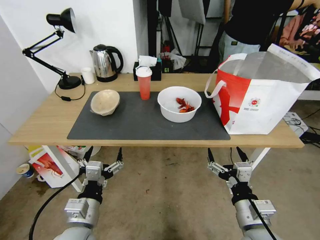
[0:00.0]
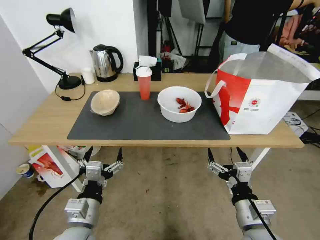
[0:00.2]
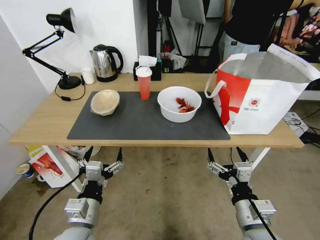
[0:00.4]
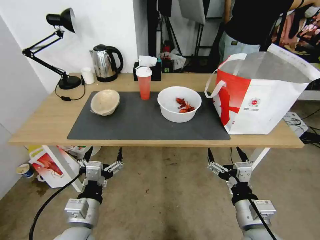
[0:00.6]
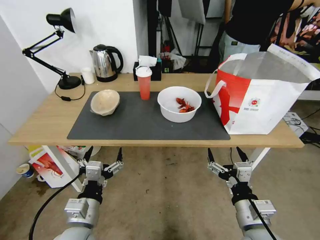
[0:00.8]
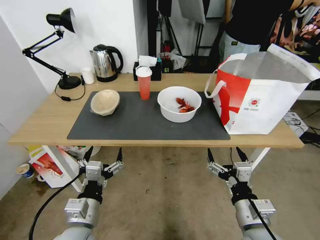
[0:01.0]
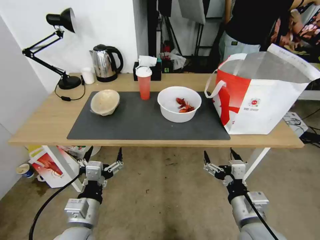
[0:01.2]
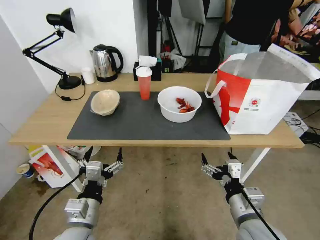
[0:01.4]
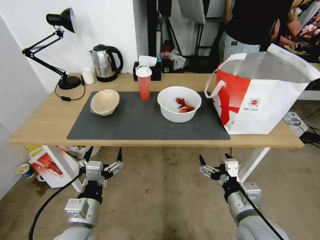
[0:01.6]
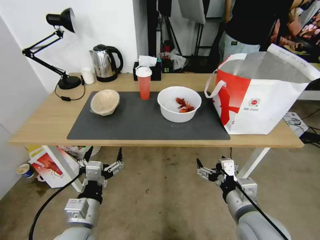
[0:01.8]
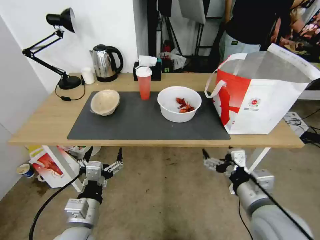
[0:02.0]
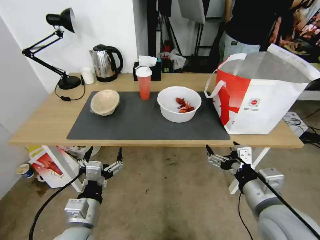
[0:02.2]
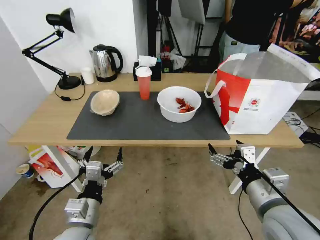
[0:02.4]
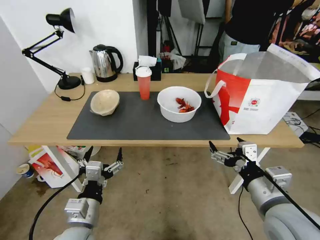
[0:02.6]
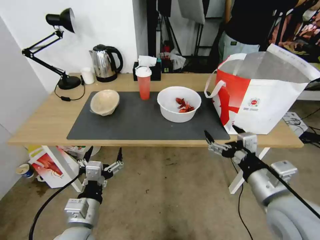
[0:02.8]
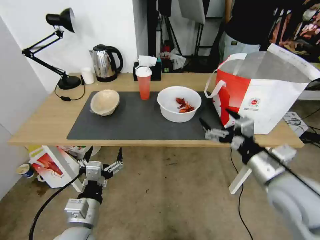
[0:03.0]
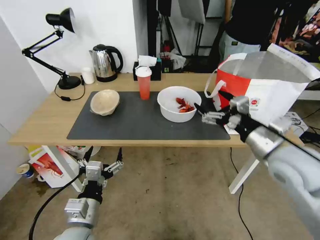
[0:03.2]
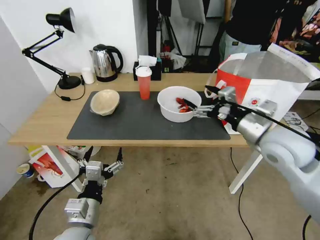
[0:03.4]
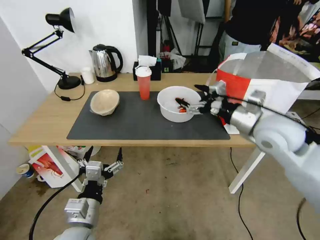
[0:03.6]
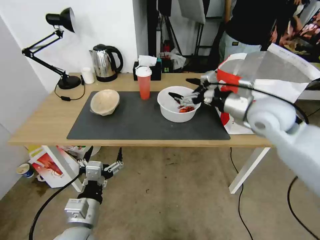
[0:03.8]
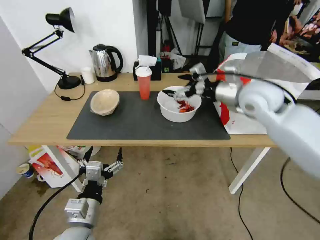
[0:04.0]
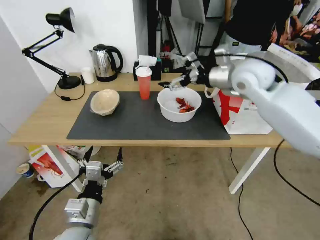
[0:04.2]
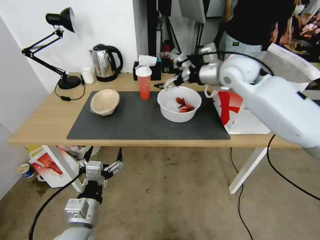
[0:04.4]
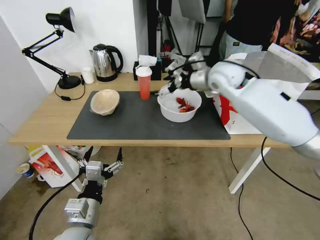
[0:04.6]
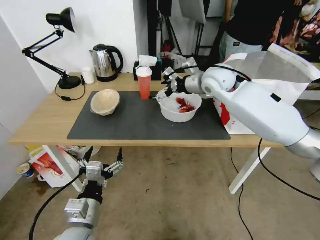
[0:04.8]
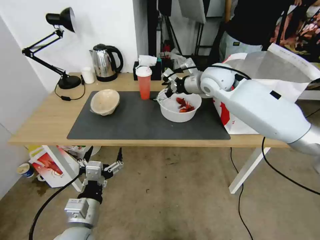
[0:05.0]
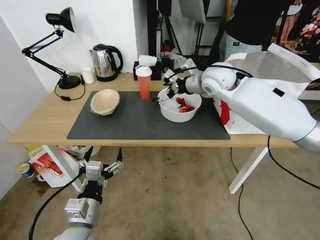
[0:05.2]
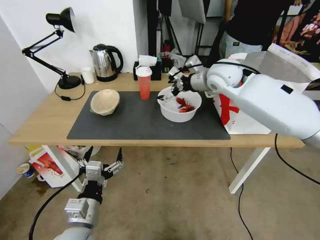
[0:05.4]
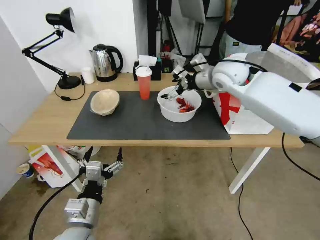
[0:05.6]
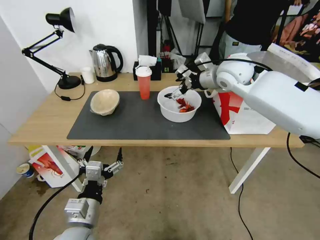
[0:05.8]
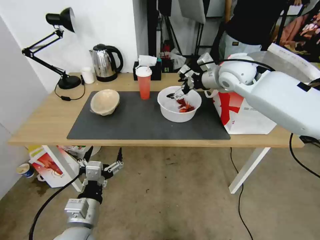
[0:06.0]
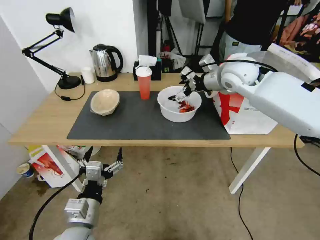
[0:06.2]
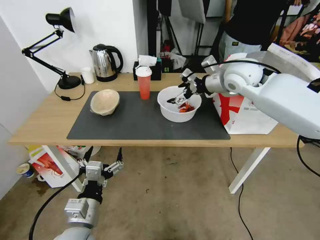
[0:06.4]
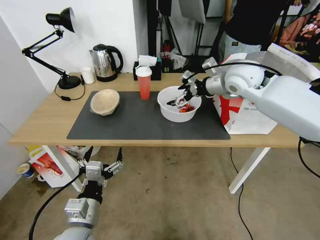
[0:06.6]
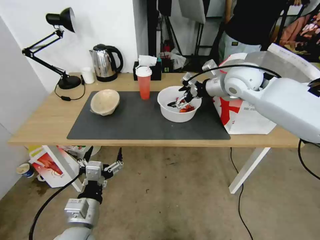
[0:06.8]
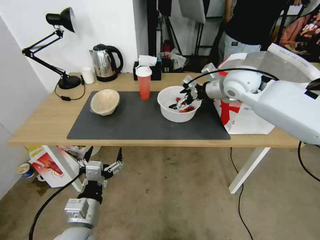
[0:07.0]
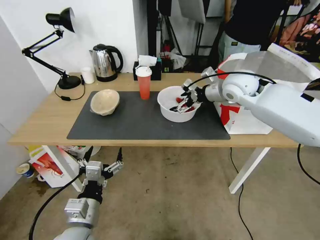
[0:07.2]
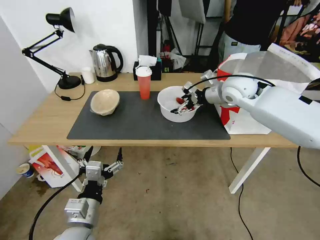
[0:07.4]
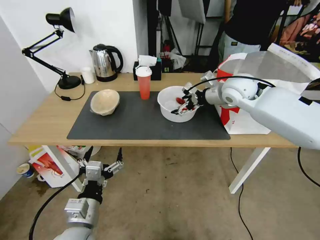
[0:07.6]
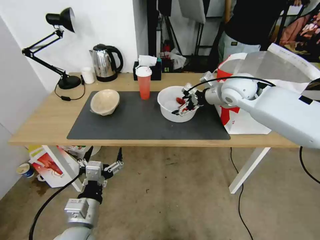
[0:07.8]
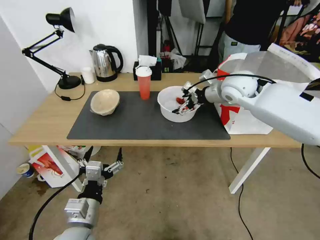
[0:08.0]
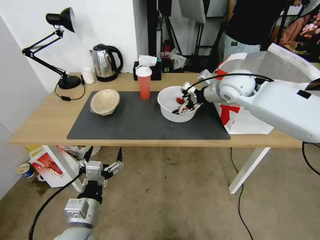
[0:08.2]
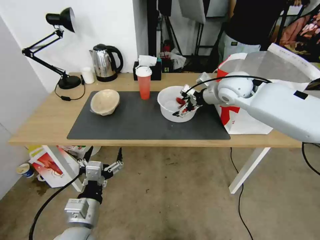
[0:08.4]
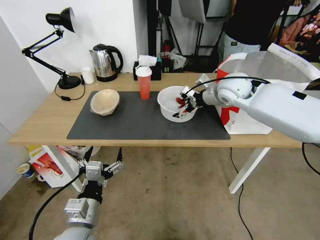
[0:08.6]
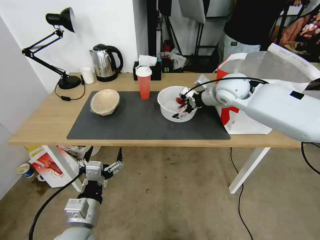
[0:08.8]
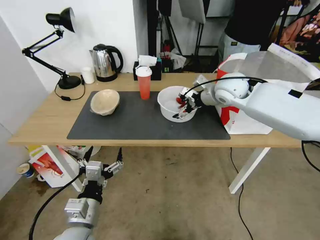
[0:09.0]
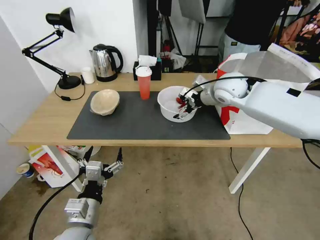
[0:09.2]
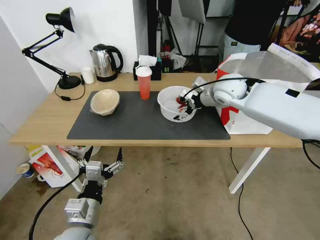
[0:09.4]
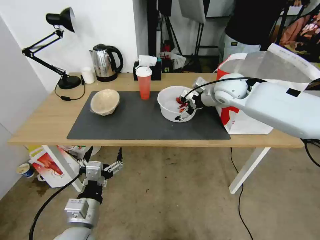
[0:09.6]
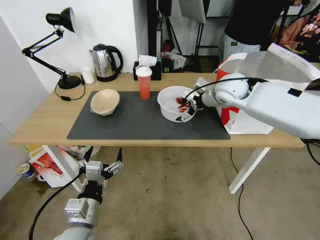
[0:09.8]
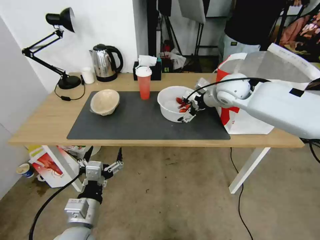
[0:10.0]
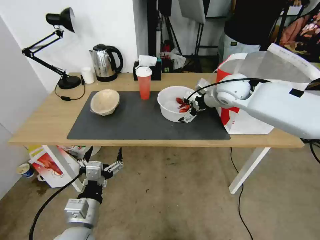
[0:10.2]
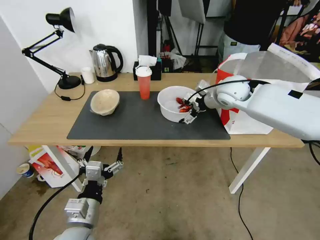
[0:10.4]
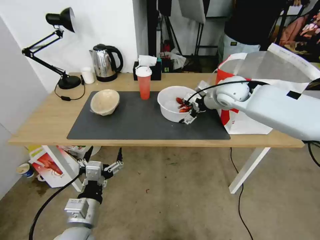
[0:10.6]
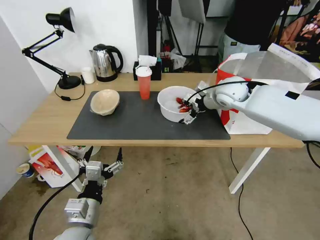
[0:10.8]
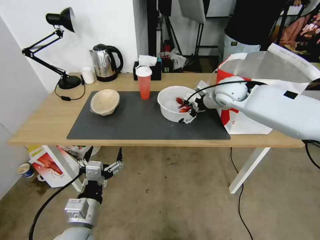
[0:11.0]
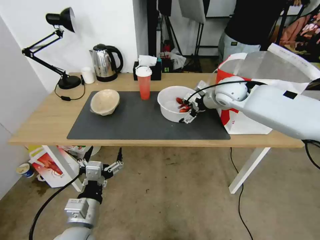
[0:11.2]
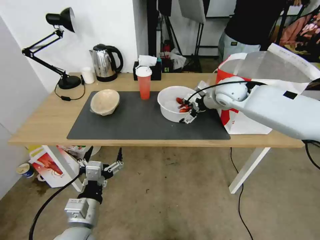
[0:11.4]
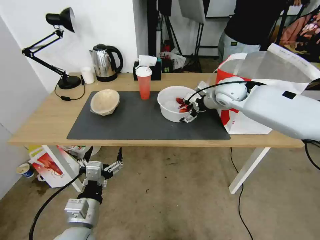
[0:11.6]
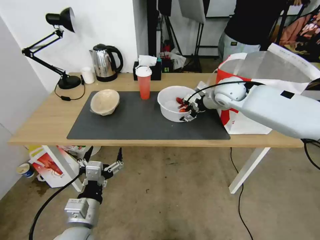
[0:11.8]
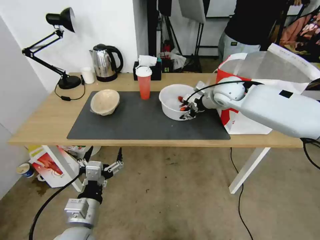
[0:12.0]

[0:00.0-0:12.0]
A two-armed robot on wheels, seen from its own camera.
Task of the whole recording: Pick up the trash from the table and place it into the takeout bag.
0:01.6 to 0:03.0: The right gripper travels upward, forward and to the right by some 10 cm.
0:03.0 to 0:04.4: The right gripper is displaced forward and upward by roughly 30 cm.
0:04.4 to 0:06.0: The grippers move only a little.
0:06.0 to 0:07.6: The right gripper shifts by approximately 5 cm.
0:07.6 to 0:10.4: The grippers make only small movements.
0:10.4 to 0:12.0: The right gripper closes.

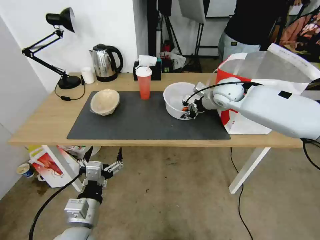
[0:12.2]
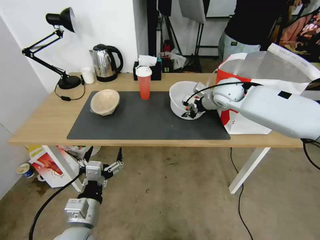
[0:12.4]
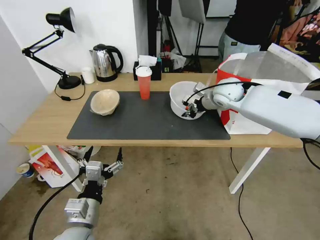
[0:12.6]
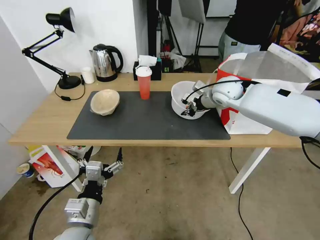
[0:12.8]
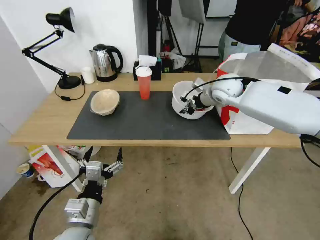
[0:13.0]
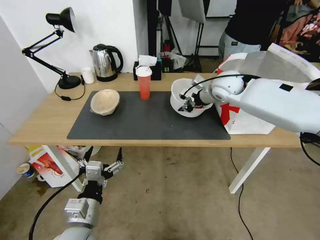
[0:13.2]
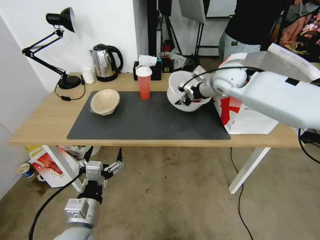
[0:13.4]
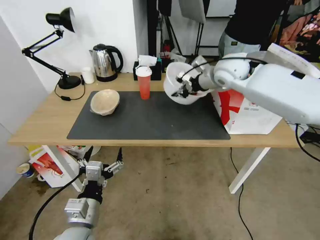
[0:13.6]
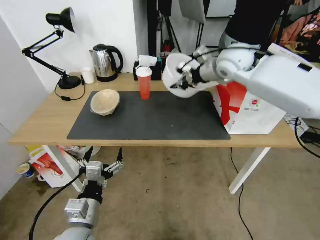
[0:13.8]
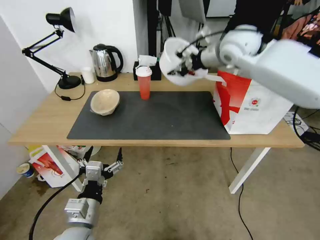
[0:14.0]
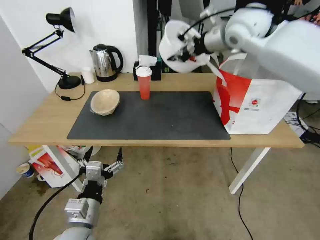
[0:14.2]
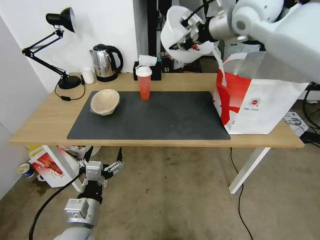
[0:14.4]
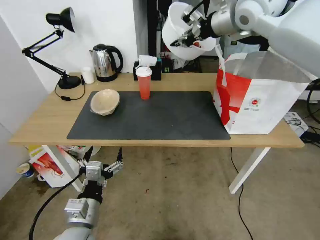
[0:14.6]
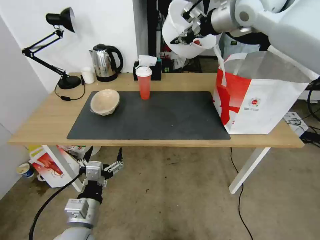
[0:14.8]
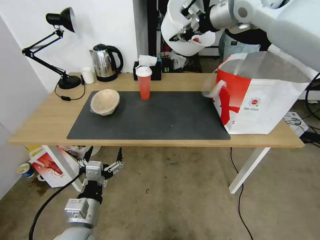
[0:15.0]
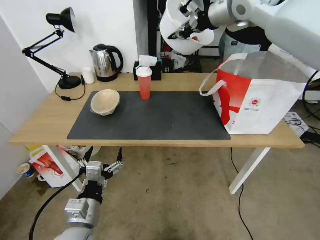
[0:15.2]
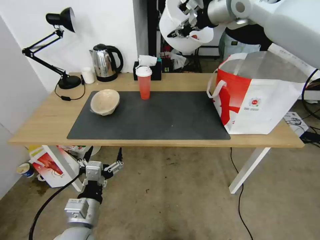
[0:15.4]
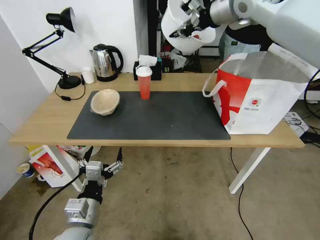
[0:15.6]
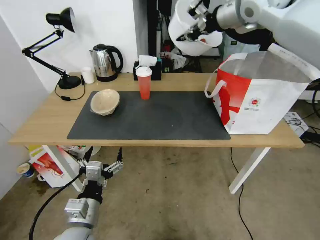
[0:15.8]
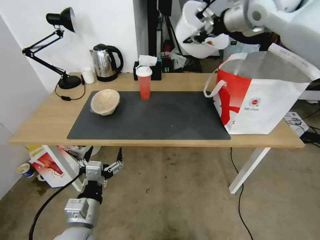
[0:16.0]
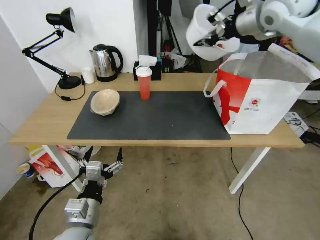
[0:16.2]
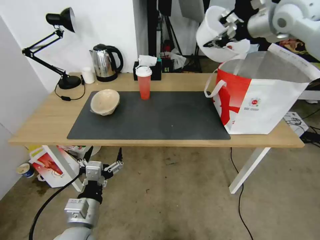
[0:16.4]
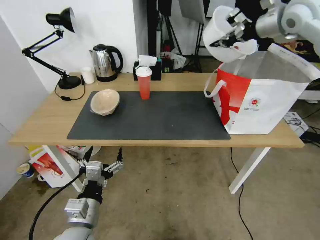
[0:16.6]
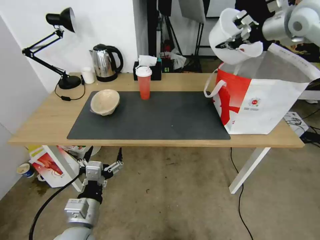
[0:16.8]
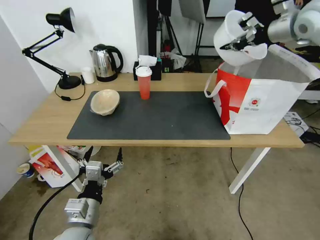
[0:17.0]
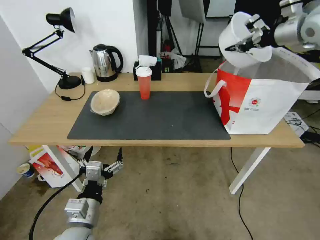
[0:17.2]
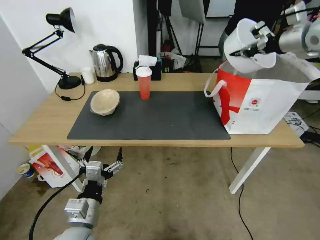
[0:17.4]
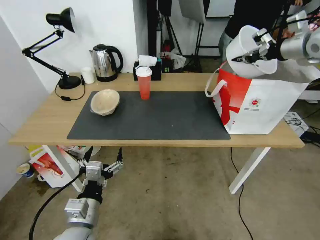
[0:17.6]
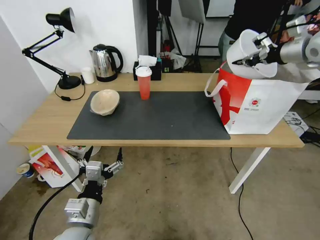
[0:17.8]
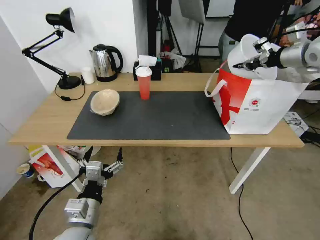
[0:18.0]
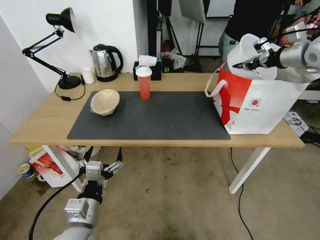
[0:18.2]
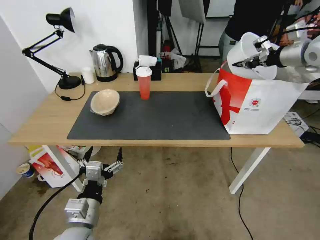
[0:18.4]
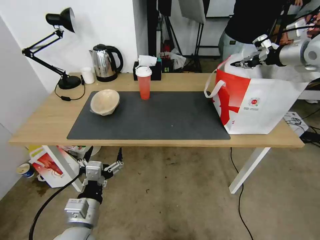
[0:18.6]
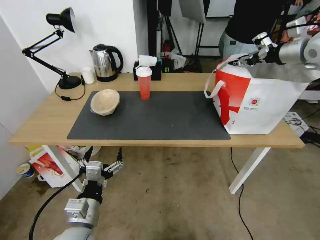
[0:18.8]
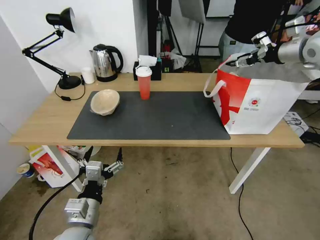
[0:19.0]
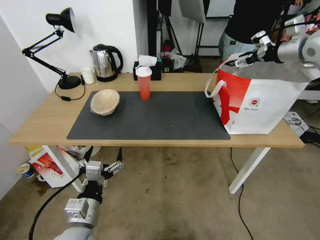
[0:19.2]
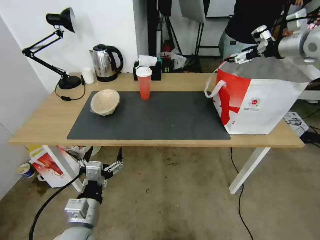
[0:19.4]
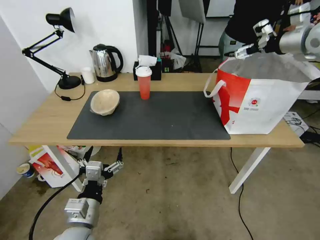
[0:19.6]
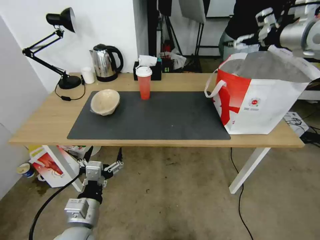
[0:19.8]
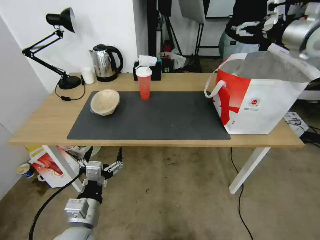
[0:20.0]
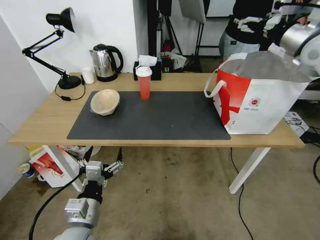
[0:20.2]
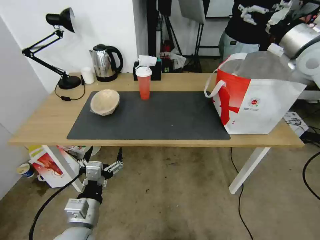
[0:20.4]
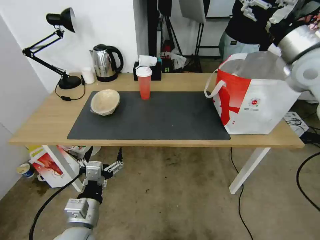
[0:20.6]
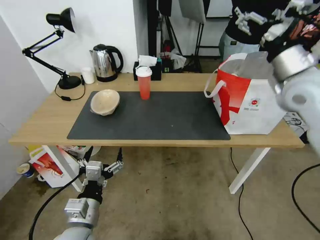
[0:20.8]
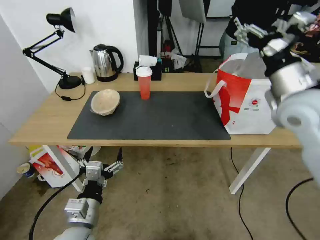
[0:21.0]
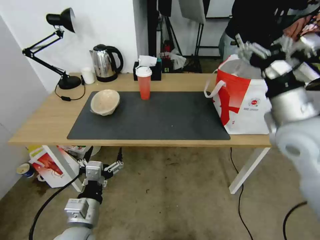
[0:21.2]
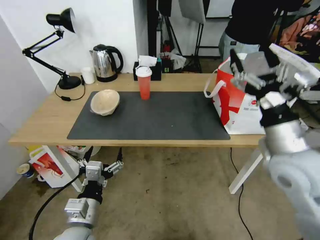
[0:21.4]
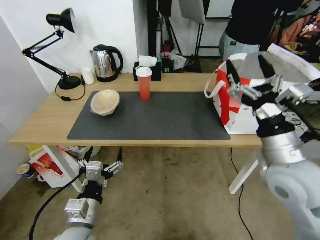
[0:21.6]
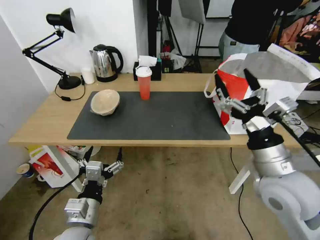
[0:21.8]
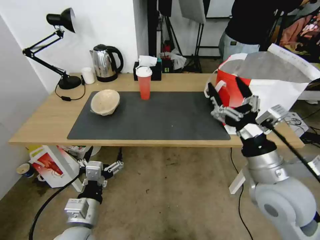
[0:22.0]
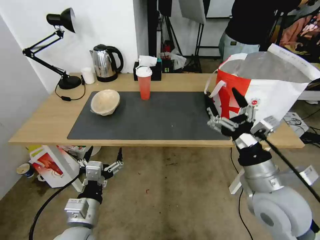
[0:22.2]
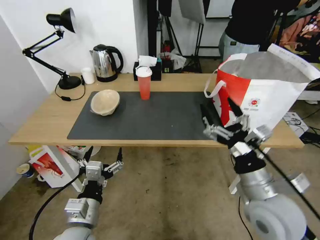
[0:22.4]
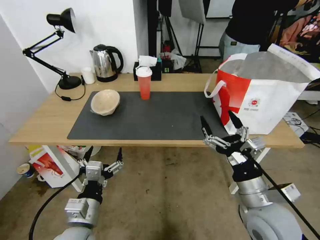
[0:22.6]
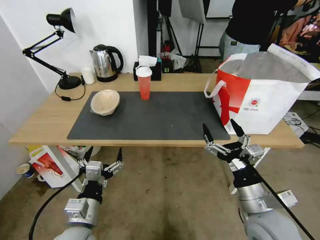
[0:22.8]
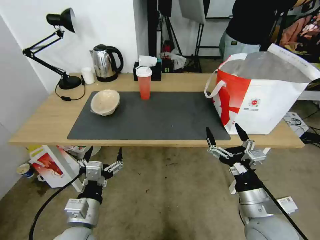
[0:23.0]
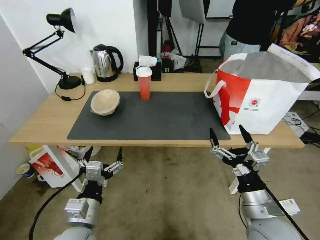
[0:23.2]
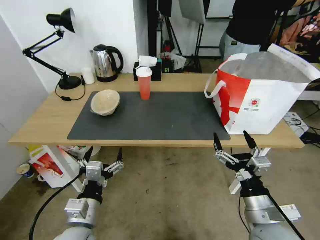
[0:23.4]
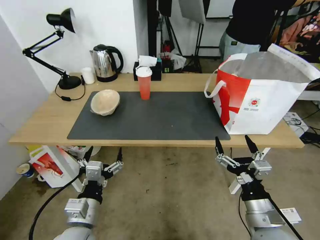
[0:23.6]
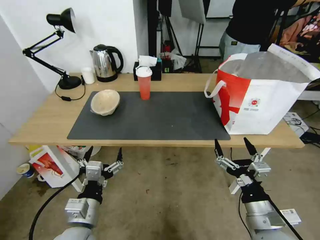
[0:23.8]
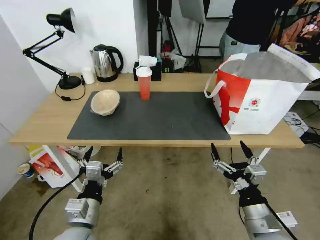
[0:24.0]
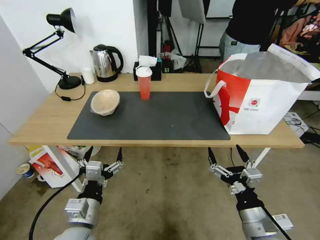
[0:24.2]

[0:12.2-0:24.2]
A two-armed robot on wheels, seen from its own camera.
Task of the whole recording: Pick up the trash from the table and place it into the takeout bag.
0:12.2 to 0:13.8: The right gripper travels upward by approximately 10 cm.
0:13.8 to 0:15.2: The right gripper moves upward, approximately 15 cm.
0:15.2 to 0:16.6: The right gripper shifts roughly 15 cm to the right.
0:16.6 to 0:18.2: The right gripper travels to the right and downward by about 15 cm.
0:18.2 to 0:19.8: The right gripper ends up roughly 5 cm from where it was, and opens its fingers.
0:19.8 to 0:21.2: The right gripper moves backward, downward and to the left, some 30 cm.
0:21.2 to 0:22.6: The right gripper travels downward and backward by roughly 20 cm.
0:22.6 to 0:24.2: The right gripper moves downward and backward, about 10 cm.
